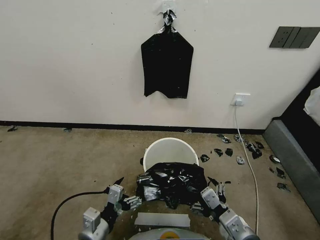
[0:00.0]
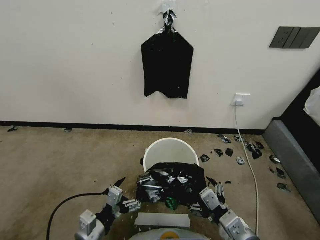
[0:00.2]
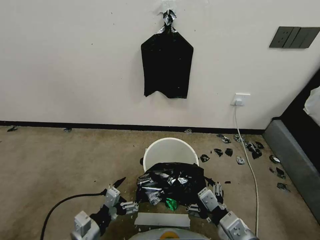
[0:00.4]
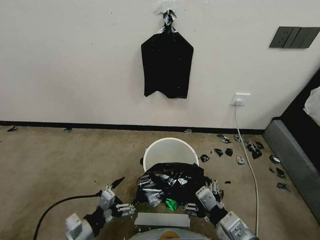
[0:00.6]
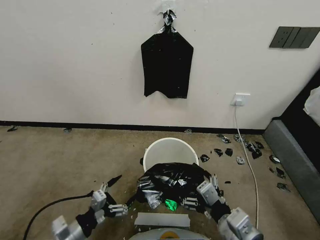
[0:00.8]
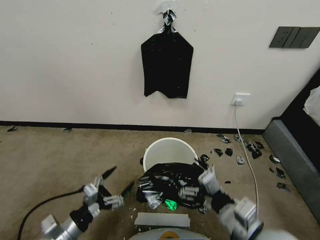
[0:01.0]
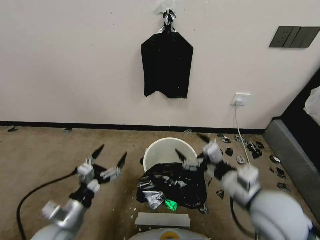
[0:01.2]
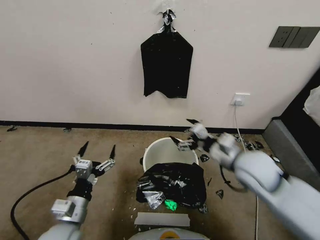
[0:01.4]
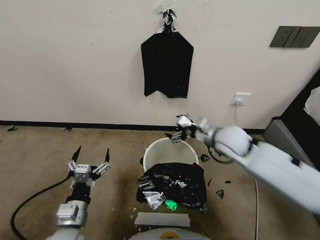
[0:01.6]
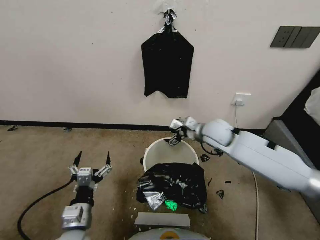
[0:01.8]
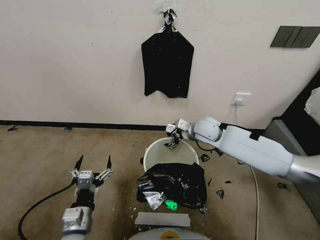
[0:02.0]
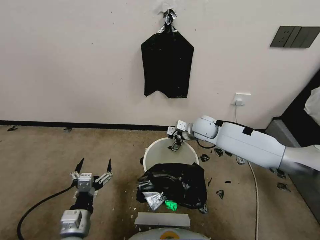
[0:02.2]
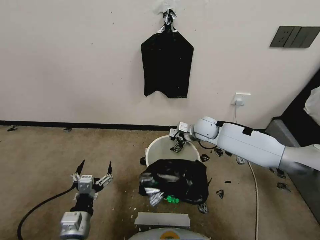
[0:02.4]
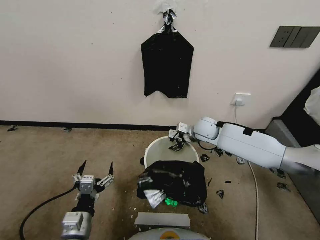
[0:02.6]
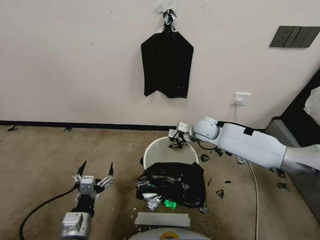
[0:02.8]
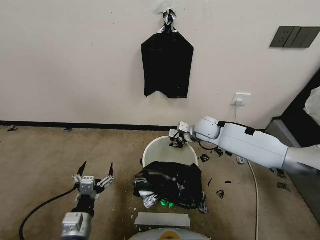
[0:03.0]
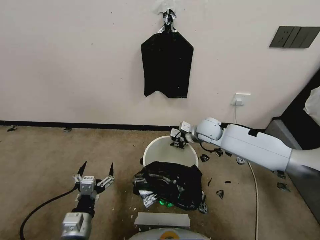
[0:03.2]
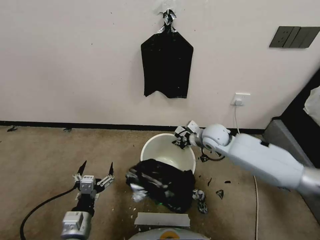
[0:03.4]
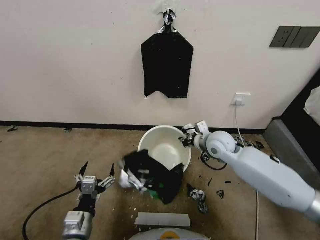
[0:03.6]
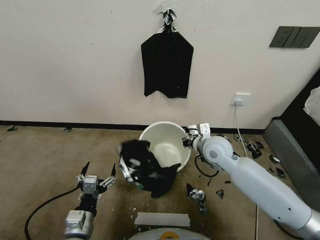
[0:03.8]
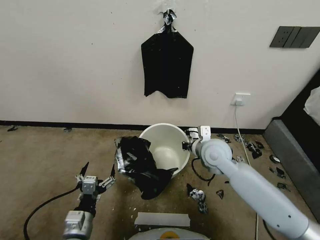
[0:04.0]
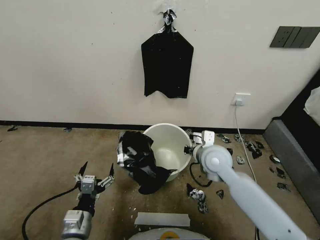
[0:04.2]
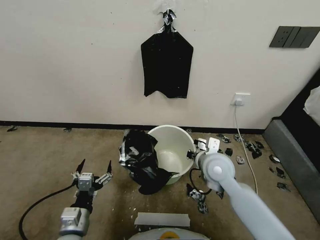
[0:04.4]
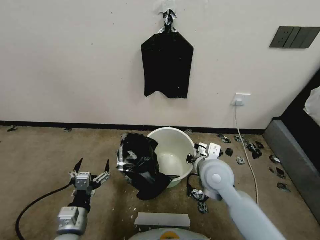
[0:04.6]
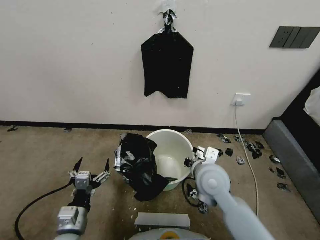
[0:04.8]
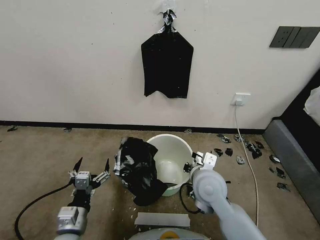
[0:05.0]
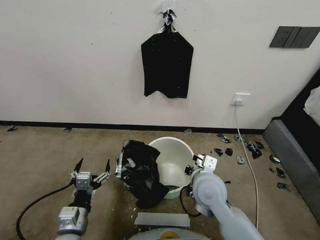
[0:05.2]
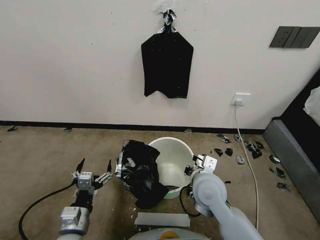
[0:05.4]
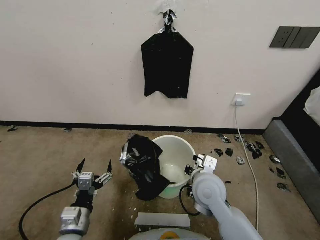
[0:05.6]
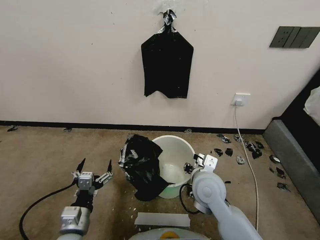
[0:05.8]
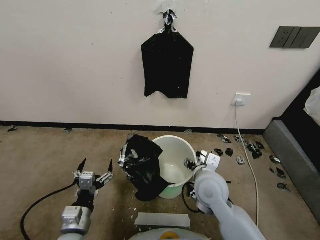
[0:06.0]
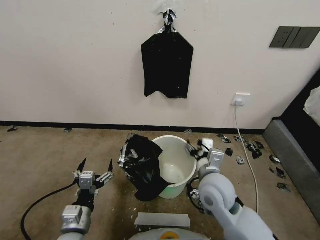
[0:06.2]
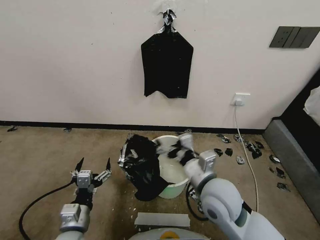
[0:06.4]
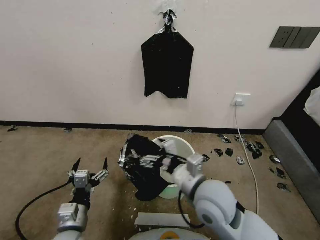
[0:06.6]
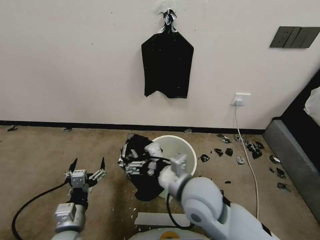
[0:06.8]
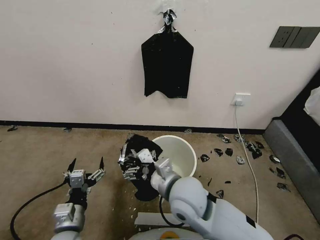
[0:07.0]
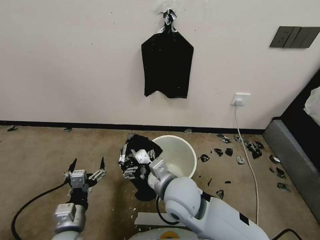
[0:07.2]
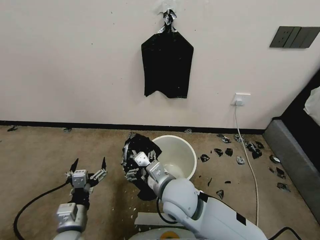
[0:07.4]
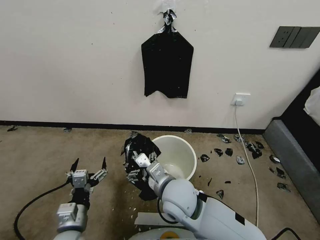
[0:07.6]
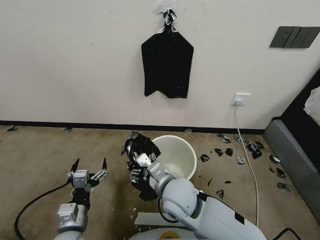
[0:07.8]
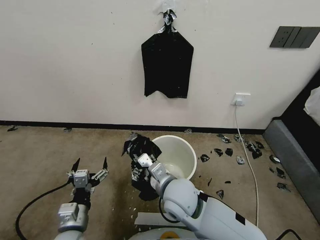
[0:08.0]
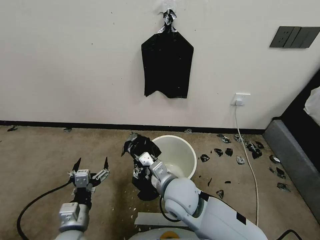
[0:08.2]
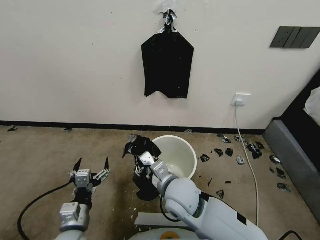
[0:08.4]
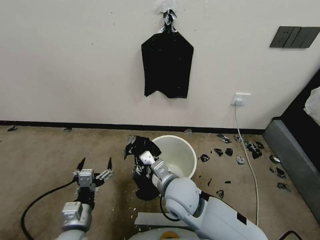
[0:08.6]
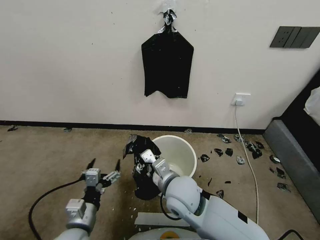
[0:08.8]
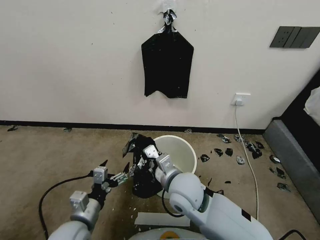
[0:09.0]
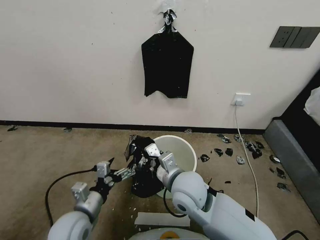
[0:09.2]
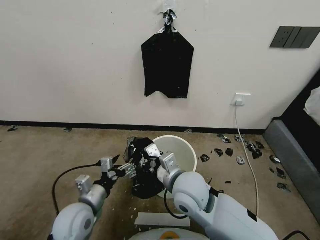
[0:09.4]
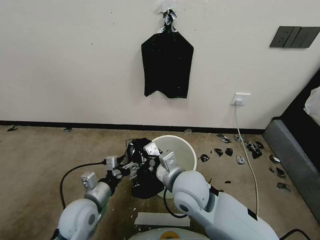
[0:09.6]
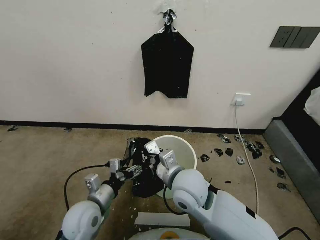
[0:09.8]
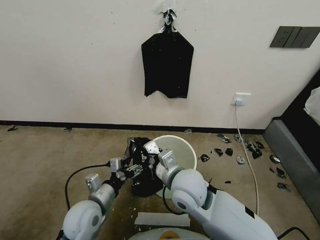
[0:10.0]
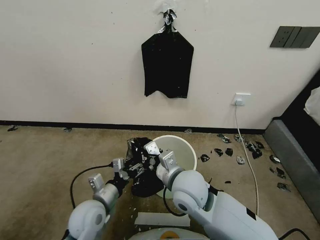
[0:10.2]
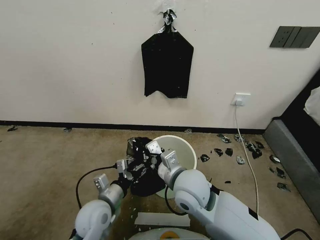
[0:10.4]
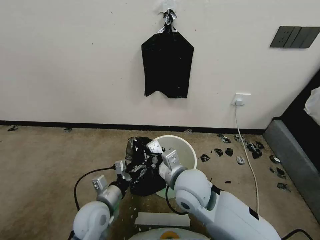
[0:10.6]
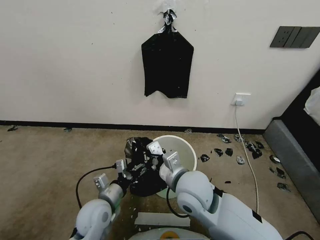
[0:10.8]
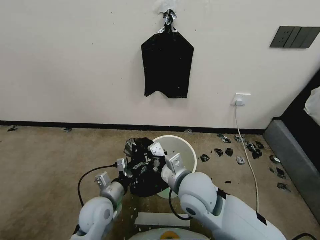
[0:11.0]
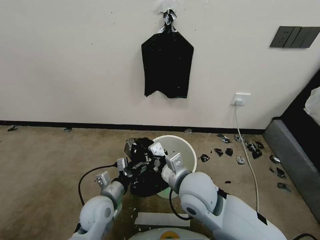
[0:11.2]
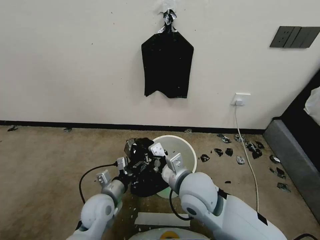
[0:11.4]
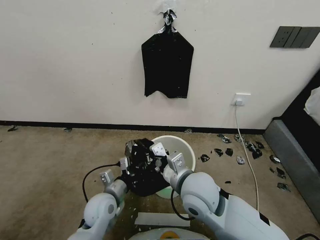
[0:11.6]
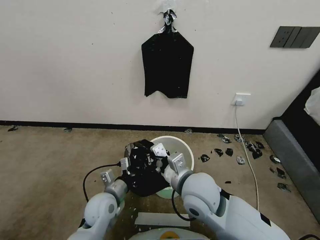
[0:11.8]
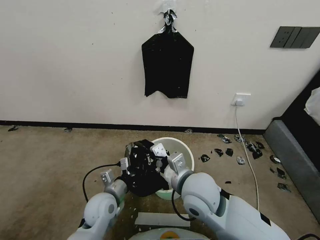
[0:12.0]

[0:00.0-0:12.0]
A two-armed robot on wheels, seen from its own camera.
Task of the whole recording: Place a trash bag onto the trash bin.
0:00.0 to 0:01.6: The left gripper travels to the left and back again, approximately 10 cm each way. Meanwhile the right gripper goes roughly 25 cm forward.
0:01.6 to 0:03.0: The right gripper is displaced forward and downward by some 15 cm, and closes.
0:03.0 to 0:04.4: The right gripper heads backward, covering approximately 15 cm.
0:04.4 to 0:06.0: The right gripper is displaced backward by approximately 5 cm, and opens its fingers.
0:06.0 to 0:07.6: The right gripper heads to the left, covering roughly 10 cm.
0:07.6 to 0:09.0: The right gripper closes its fingers.
0:09.0 to 0:10.4: The left gripper is displaced forward by some 5 cm.
0:10.4 to 0:12.0: The left gripper closes up.

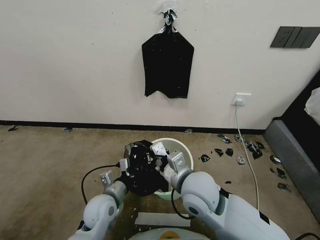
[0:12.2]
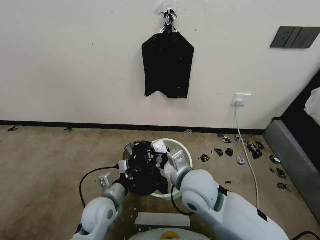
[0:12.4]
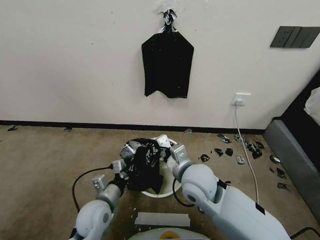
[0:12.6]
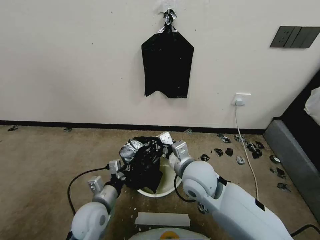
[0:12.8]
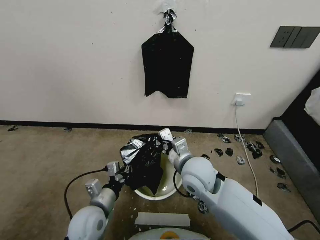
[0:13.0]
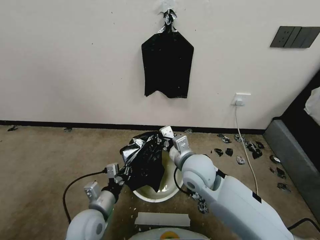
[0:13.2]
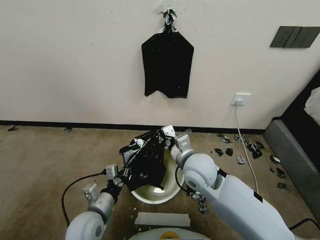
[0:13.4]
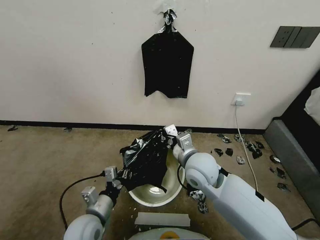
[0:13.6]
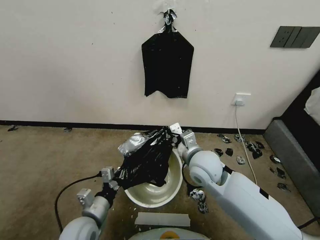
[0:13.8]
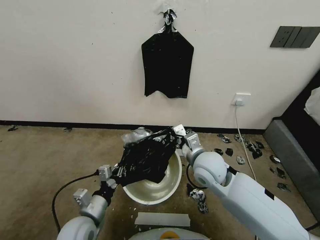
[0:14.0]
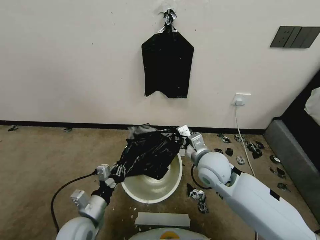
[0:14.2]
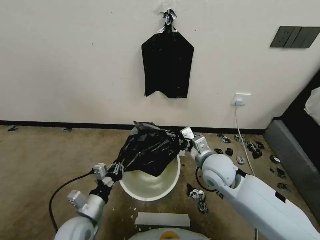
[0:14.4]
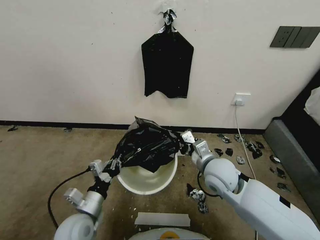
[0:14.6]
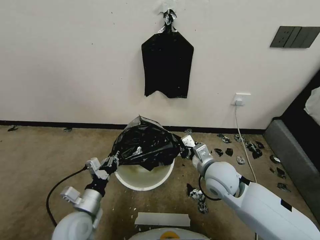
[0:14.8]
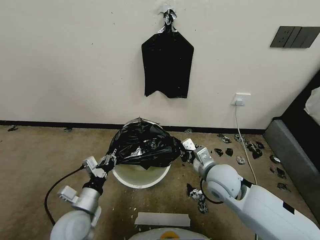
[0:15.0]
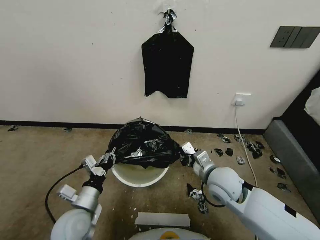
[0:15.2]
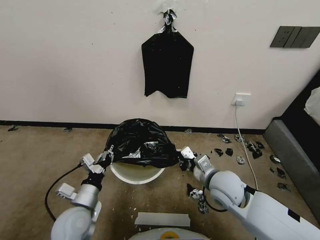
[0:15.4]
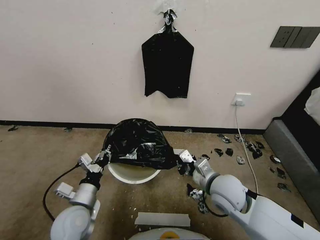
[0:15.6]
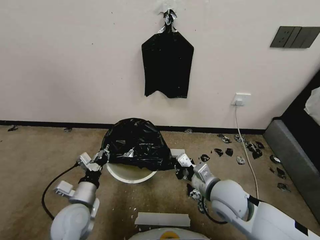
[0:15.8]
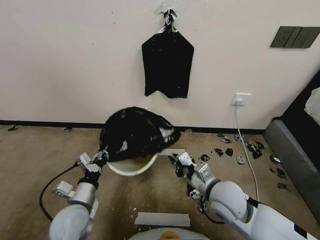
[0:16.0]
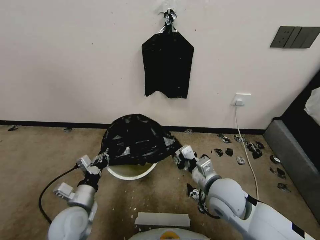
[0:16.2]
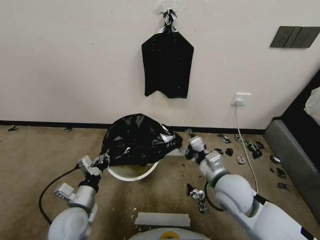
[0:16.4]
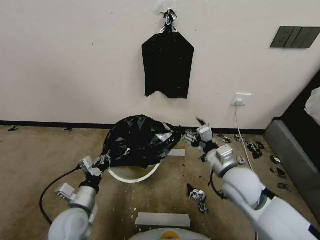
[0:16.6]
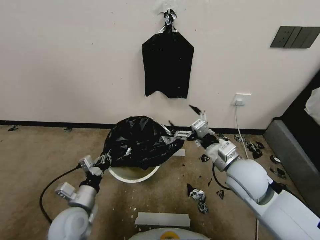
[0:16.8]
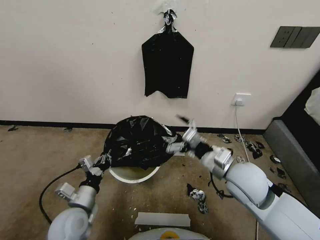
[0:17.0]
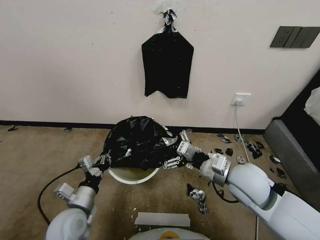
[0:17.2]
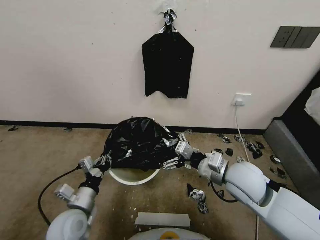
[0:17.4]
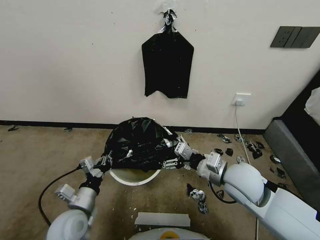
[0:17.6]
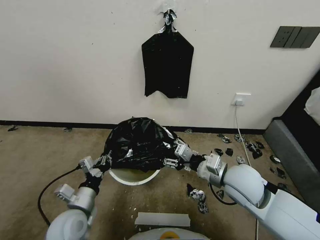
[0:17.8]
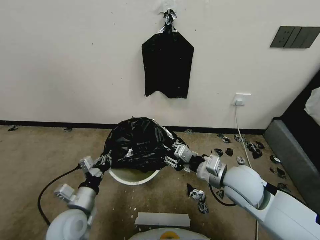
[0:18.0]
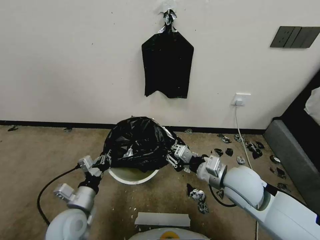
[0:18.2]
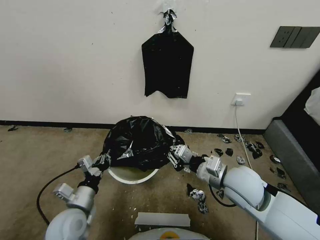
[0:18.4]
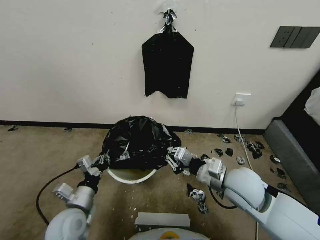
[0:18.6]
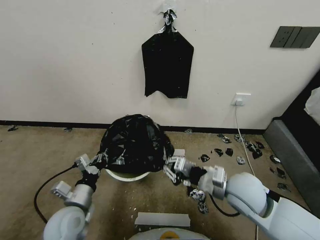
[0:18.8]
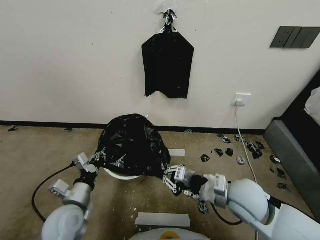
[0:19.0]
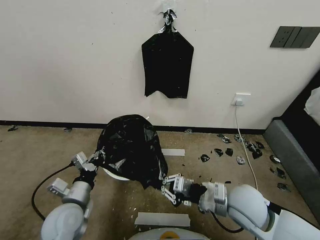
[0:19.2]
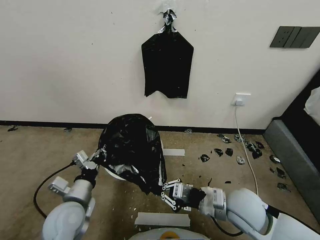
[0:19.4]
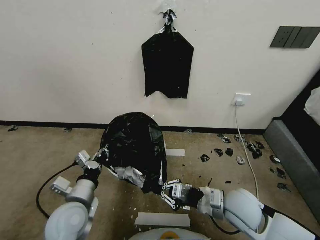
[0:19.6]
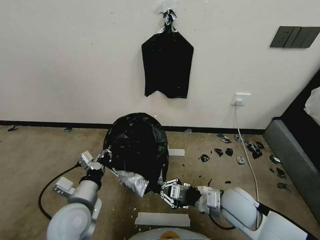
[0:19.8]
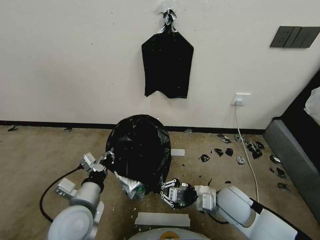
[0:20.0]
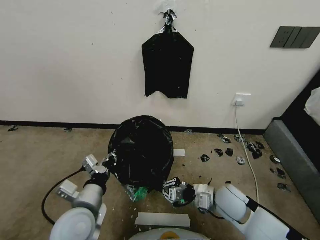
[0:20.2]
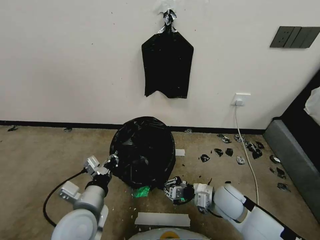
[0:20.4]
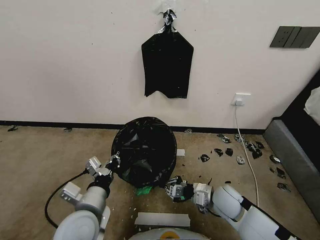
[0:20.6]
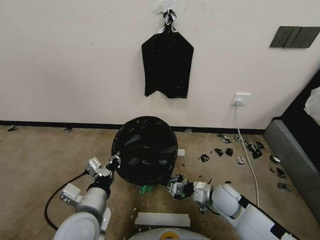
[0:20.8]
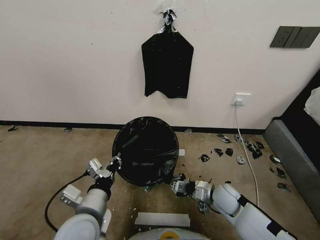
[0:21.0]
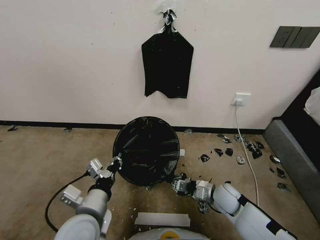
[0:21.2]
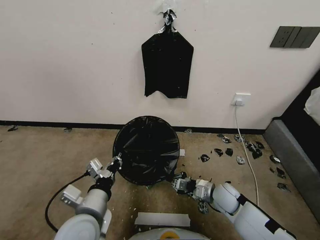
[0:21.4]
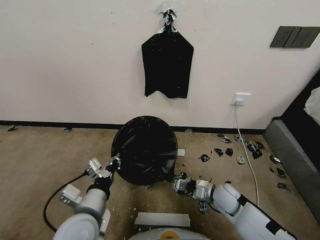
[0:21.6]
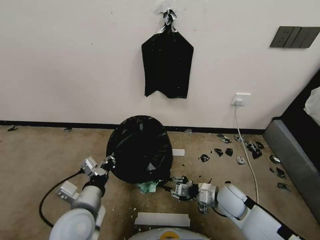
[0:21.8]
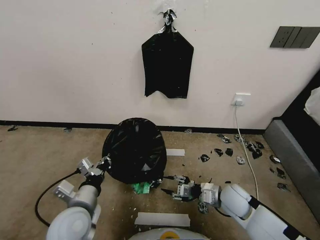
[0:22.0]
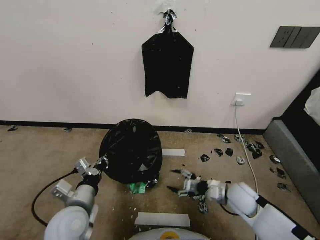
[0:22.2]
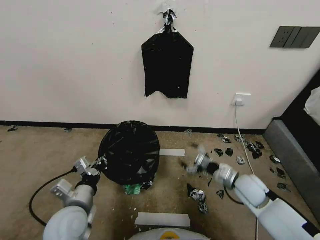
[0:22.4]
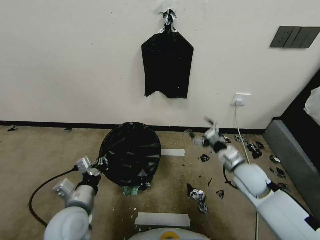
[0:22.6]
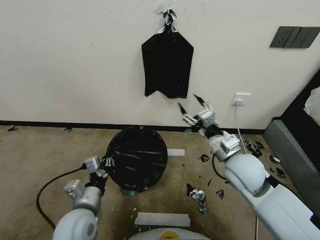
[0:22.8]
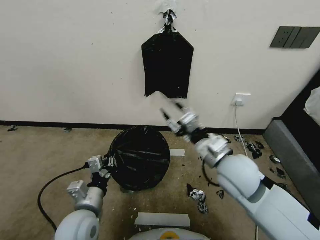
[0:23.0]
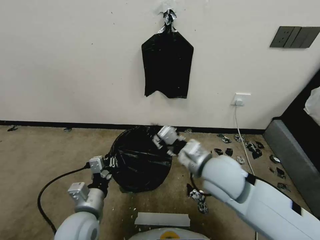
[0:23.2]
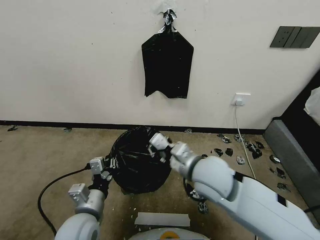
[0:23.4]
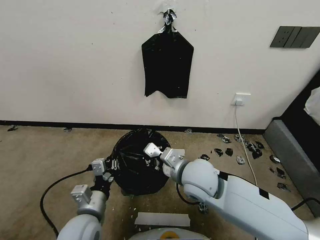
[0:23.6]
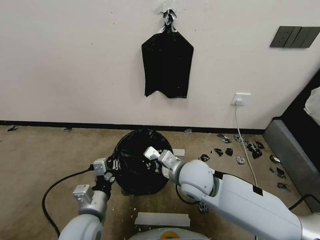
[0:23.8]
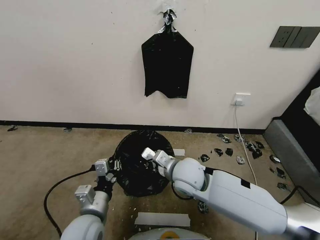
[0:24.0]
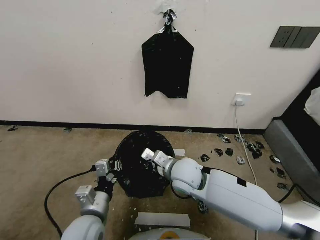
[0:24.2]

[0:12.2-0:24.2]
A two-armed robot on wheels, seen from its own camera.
Task of the whole recording: Place a trash bag onto the trash bin.
0:12.2 to 0:13.8: The right gripper travels forward by some 5 cm. The left gripper is displaced backward by approximately 5 cm.
0:13.8 to 0:15.2: The right gripper heads to the right, covering approximately 5 cm.
0:15.2 to 0:16.6: The right gripper changes place by approximately 5 cm, and opens.
0:16.6 to 0:18.2: The right gripper closes.
0:18.2 to 0:19.8: The left gripper travels upward by approximately 5 cm. The right gripper heads downward, covering some 10 cm.
0:19.8 to 0:21.2: The left gripper moves approximately 5 cm, while the right gripper goes approximately 15 cm downward and forward.
0:21.2 to 0:22.6: The right gripper moves upward, roughly 15 cm, and opens its fingers. The left gripper moves about 5 cm.
0:22.6 to 0:24.2: The right gripper travels to the left by roughly 20 cm, and closes.
